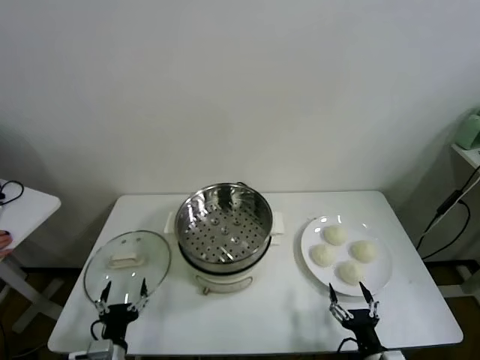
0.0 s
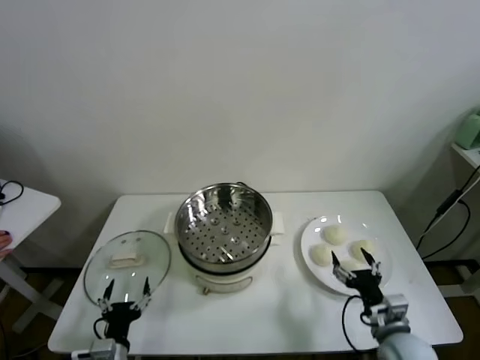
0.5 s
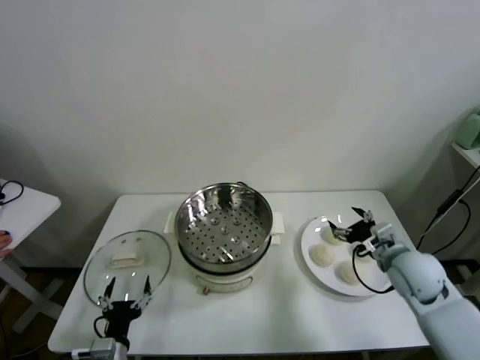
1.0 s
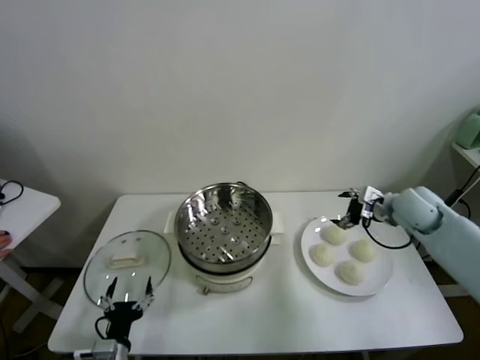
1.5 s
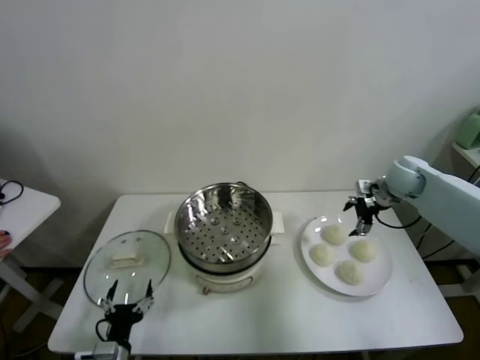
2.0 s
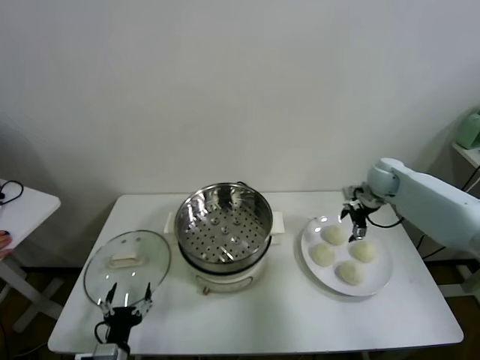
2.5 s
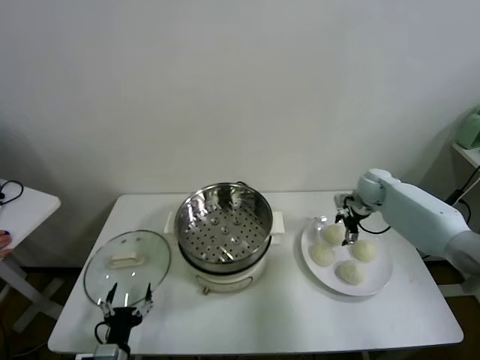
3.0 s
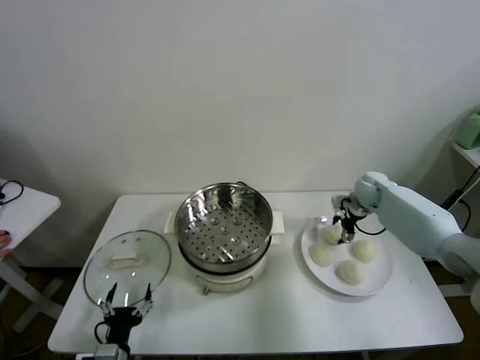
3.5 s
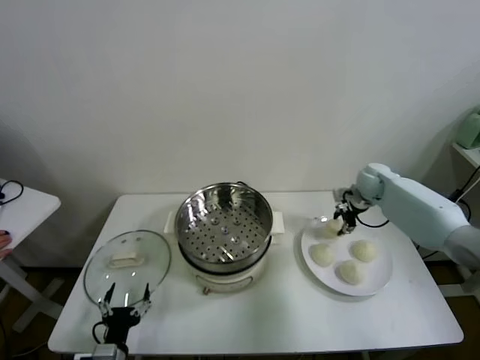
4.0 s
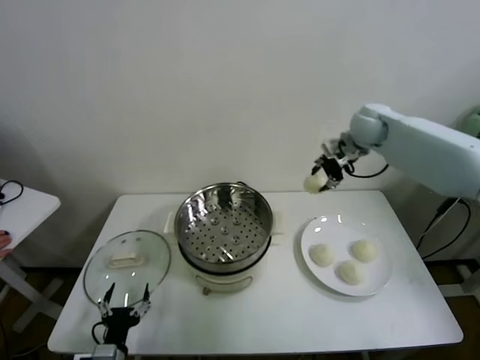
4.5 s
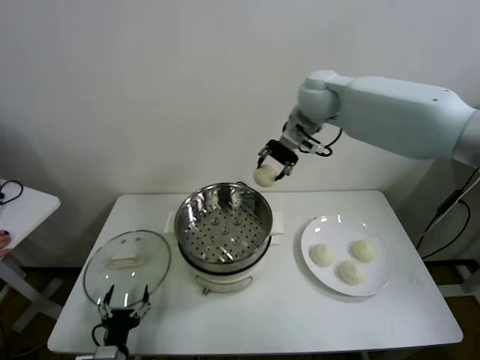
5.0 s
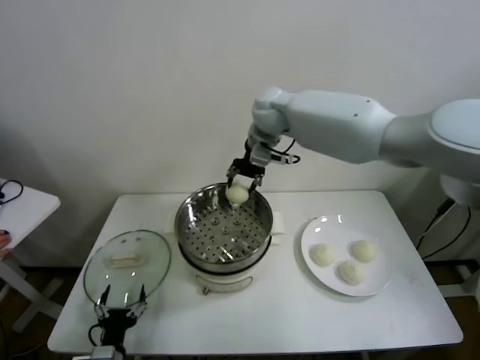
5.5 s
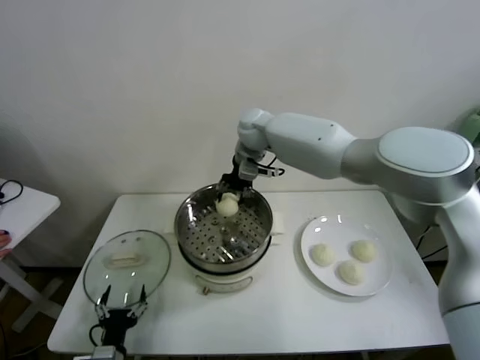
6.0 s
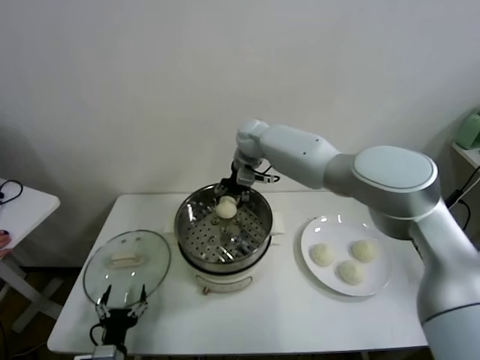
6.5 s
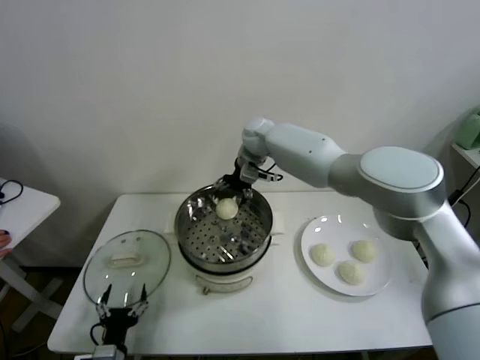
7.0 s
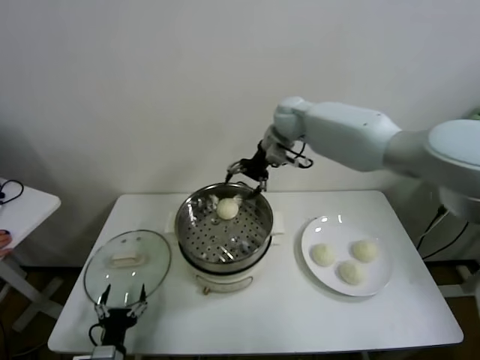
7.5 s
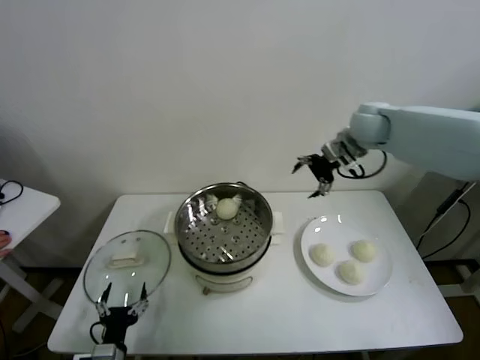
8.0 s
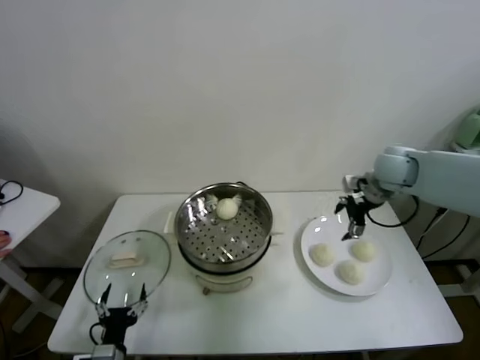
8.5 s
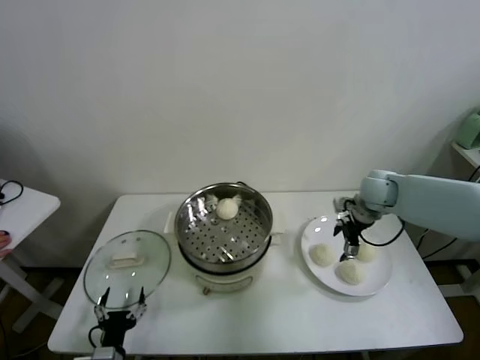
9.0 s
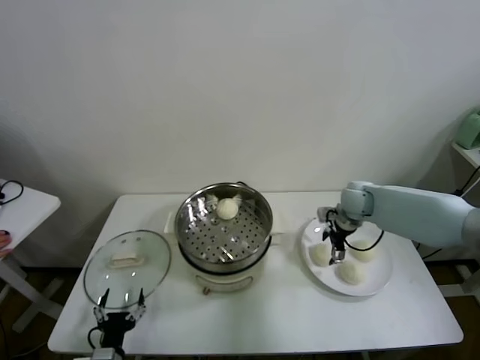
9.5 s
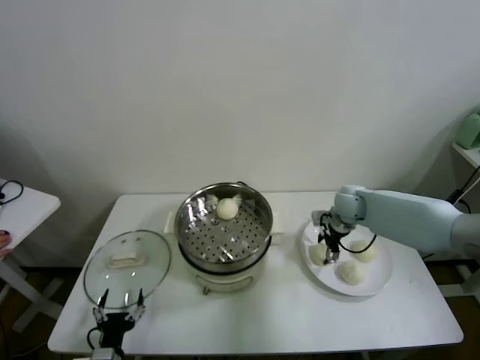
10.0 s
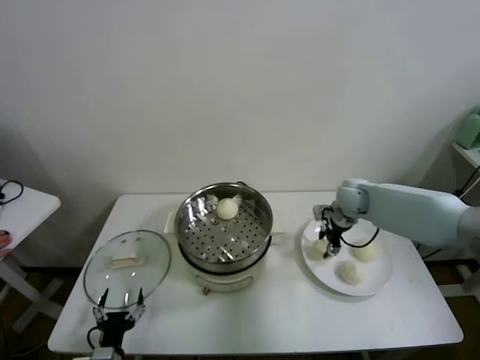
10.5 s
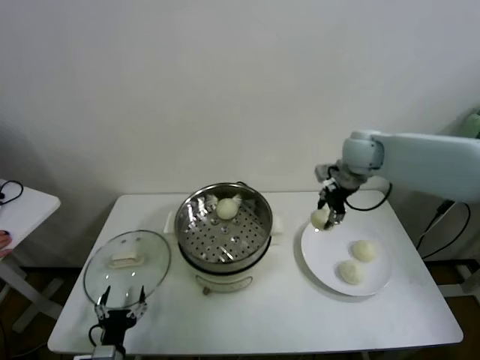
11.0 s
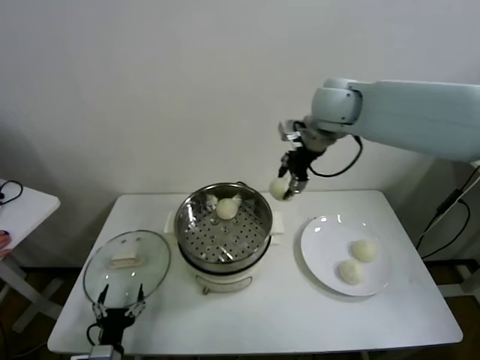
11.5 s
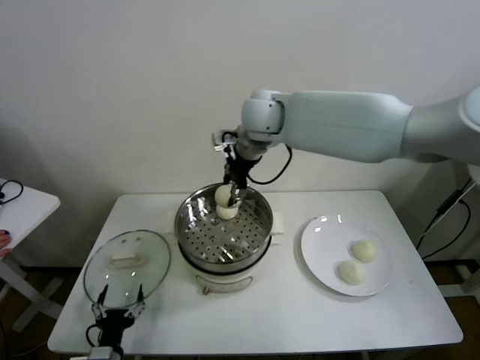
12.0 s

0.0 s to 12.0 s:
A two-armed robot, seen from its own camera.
Task of the whole recording: take steamed baozi put them in steamer.
Step, 0.0 to 3.5 s: Grasp the baozi in the plate with right gripper.
Step, 4.0 to 6.5 s: Place the baozi on the steamer with right gripper.
Step, 7.0 to 10.0 s: Grasp the baozi in the plate with right gripper.
2.0 to 4.0 s: The right gripper closes its fingers.
4.0 to 6.0 s: The right gripper heads to the left, covering approximately 30 cm.
6.0 to 8.0 s: The right gripper shifts approximately 25 cm to the right, and opens.
8.0 to 10.0 s: The right gripper travels downward by approximately 20 cm, and closes up.
10.0 to 12.0 s: The right gripper heads to the left and upward, covering roughly 35 cm, and closes.

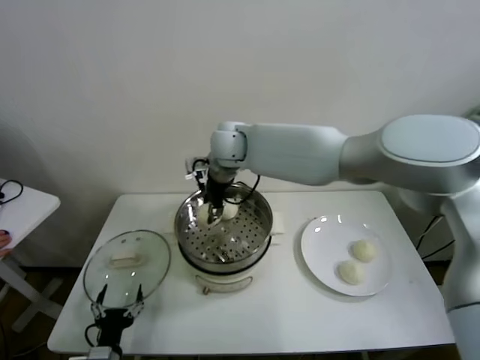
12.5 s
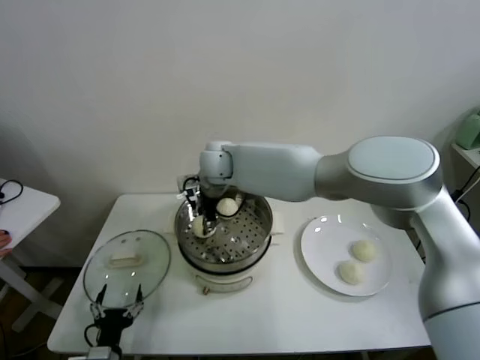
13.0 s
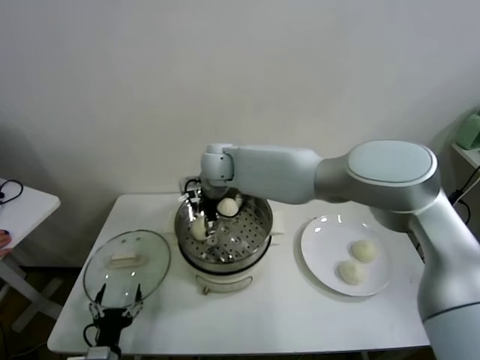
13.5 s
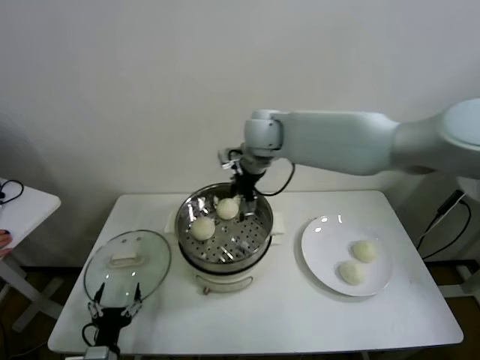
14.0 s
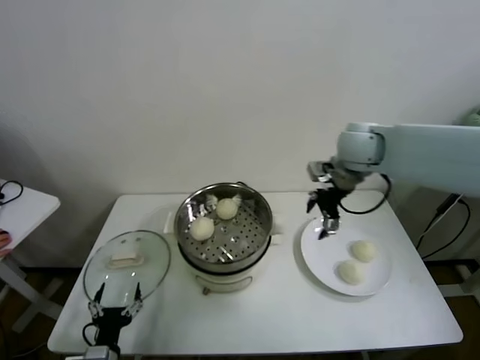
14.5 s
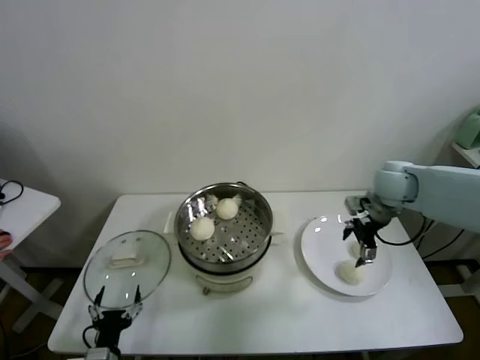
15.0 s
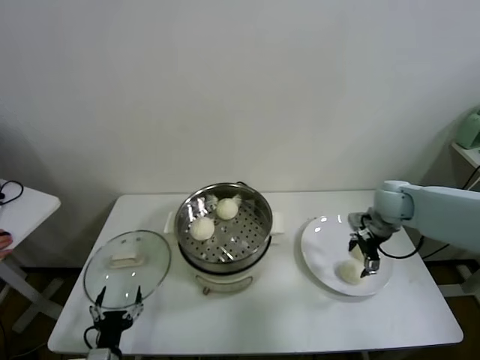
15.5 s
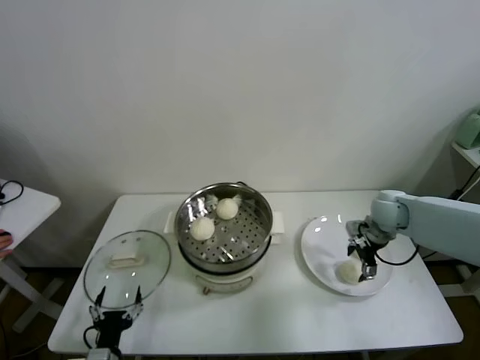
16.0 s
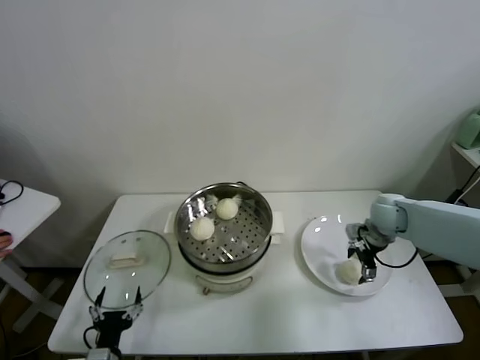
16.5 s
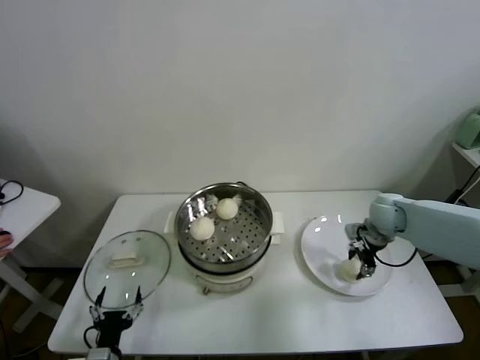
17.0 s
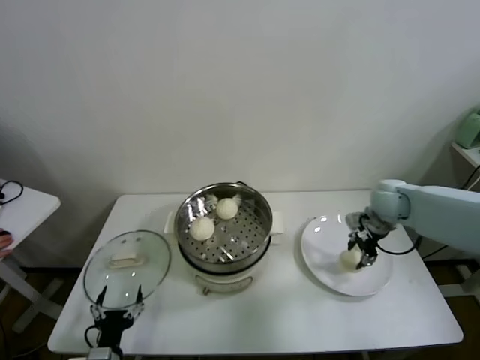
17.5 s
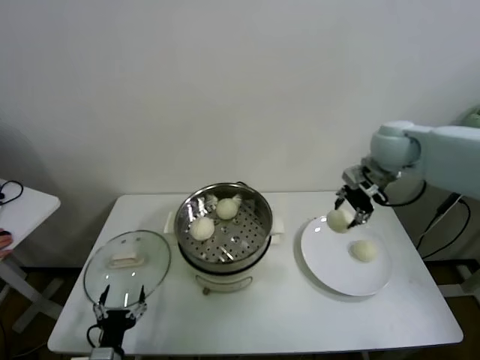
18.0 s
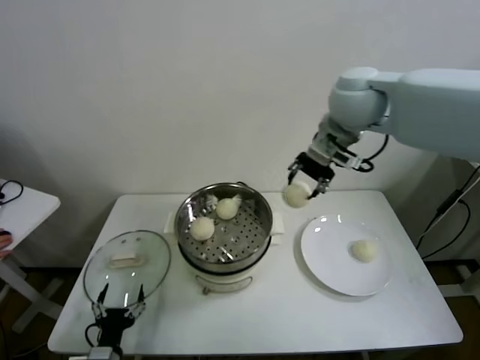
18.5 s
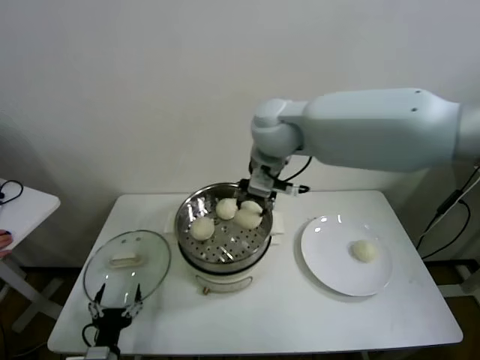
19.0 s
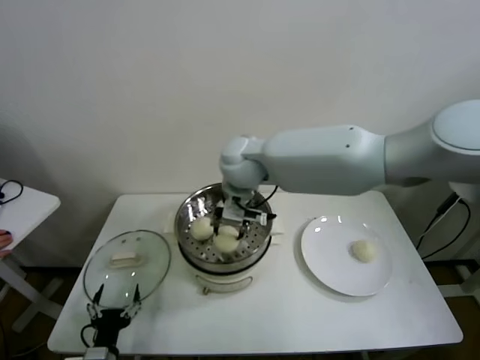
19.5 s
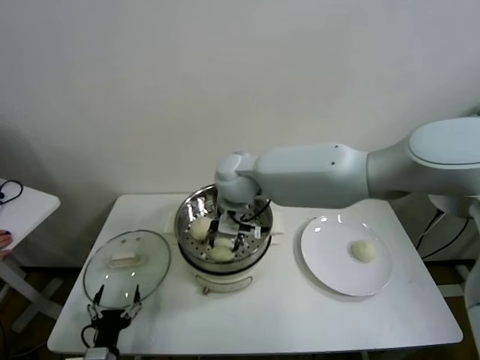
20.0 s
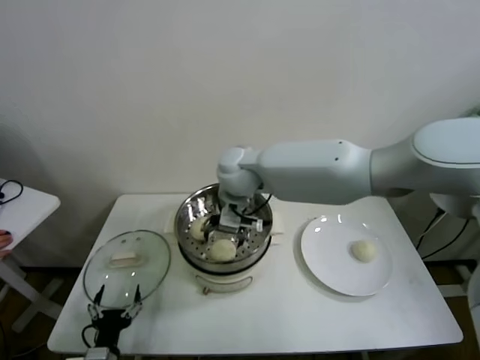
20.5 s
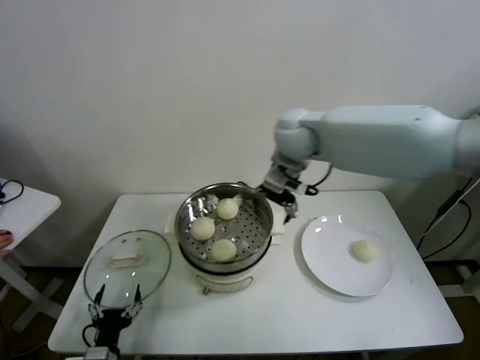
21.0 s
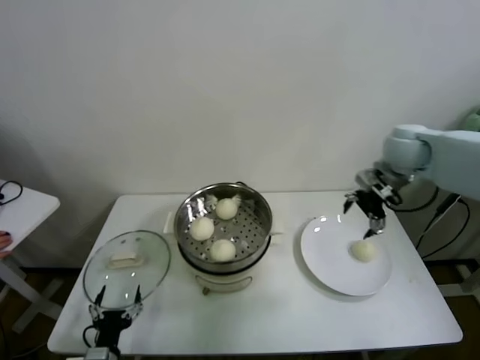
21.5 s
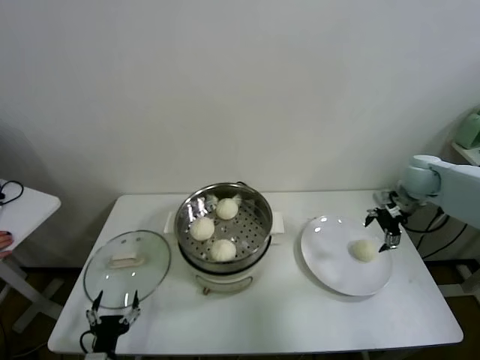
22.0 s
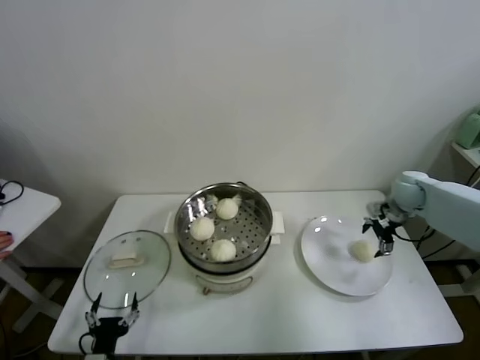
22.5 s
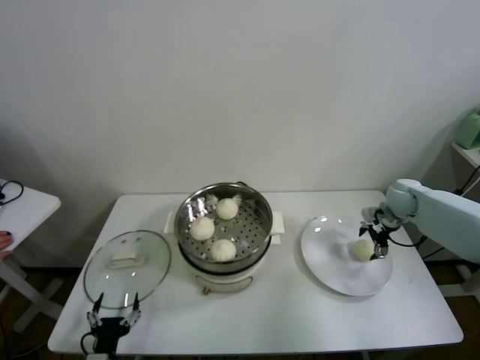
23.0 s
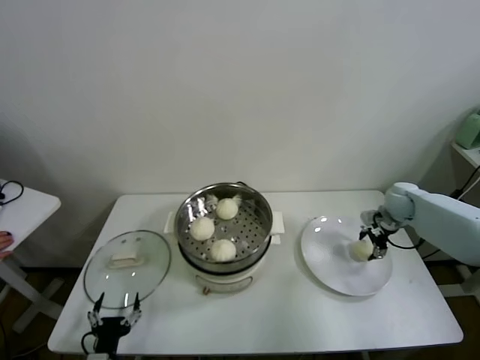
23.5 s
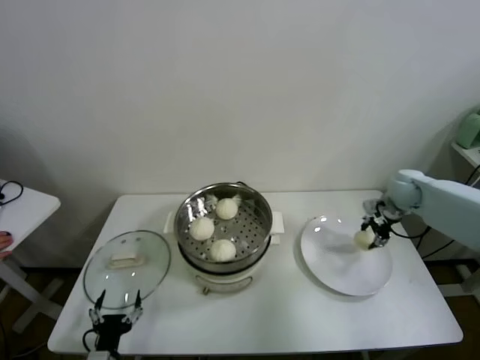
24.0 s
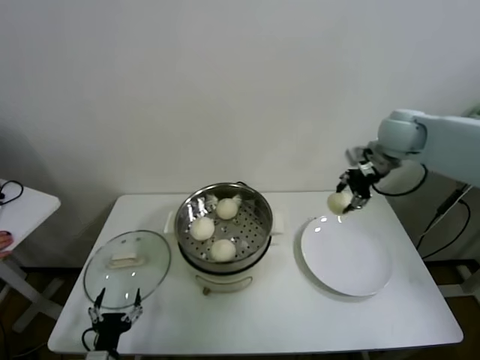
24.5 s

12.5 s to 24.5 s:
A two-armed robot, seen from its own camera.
Task of the whole recording: take steamed baozi put them in steamer.
Step, 13.5 to 16.5 s: Grasp the baozi in the plate with right gripper.
Step, 17.0 to 20.0 s: Place the baozi on the steamer with right gripper.
Step, 20.5 to 23.5 s: Grasp the baozi in the plate with right gripper.
12.5 to 14.5 s: The right gripper is displaced to the right by some 30 cm, and opens up.
14.5 to 16.5 s: The right gripper goes about 20 cm downward and to the right.
16.5 to 18.5 s: The right gripper shifts about 35 cm upward and to the left, and closes up.
18.5 to 20.5 s: The right gripper moves to the left and downward, about 25 cm, and opens.
20.5 to 22.5 s: The right gripper moves to the right, about 40 cm.
22.5 to 24.5 s: The right gripper moves upward and to the left, about 20 cm, and closes its fingers.

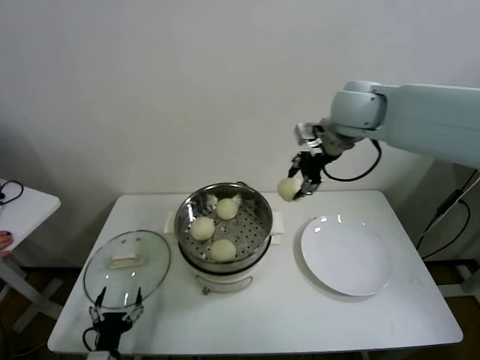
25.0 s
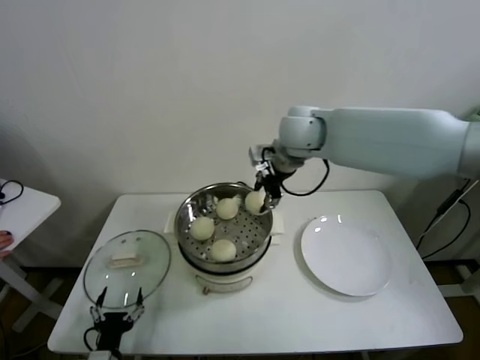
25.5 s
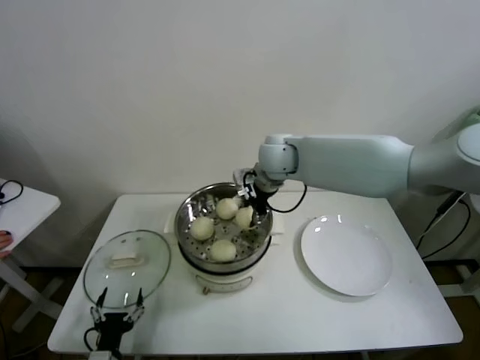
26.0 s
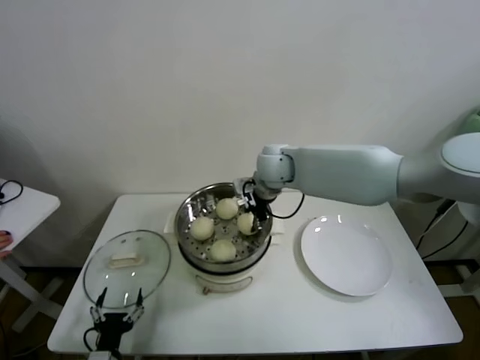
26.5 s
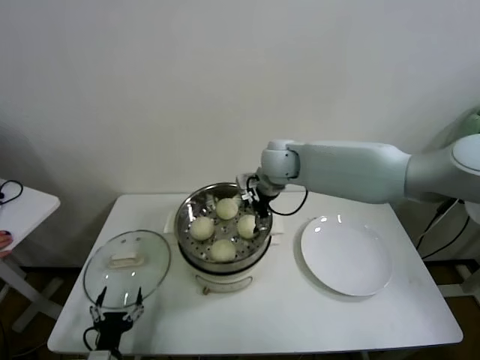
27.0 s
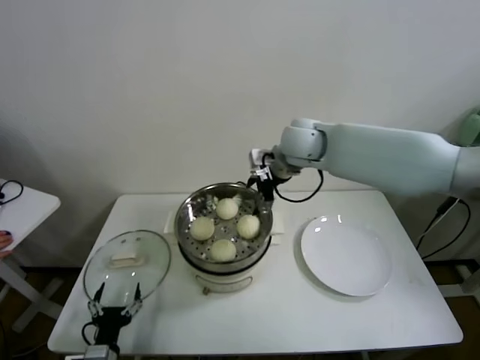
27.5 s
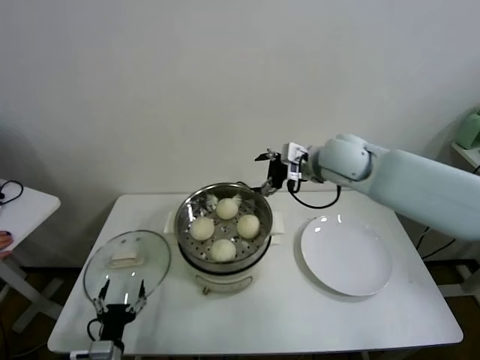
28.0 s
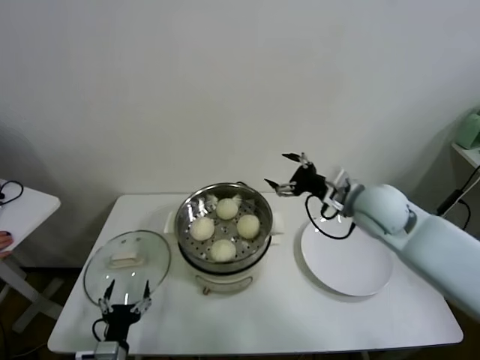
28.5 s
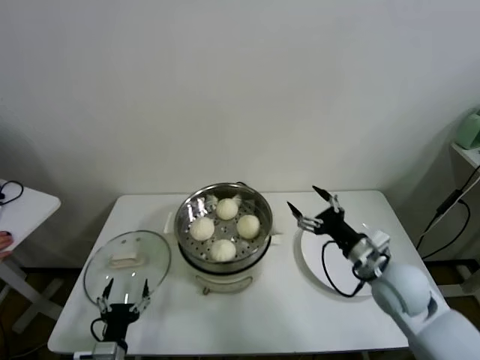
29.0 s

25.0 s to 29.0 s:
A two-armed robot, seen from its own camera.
Task of the whole recording: take steamed baozi put them in steamer.
25.0 to 27.0 s: The right gripper moves downward and to the left, approximately 20 cm, and opens up.
27.0 to 29.0 s: The right gripper moves backward, to the right and downward, about 35 cm.
